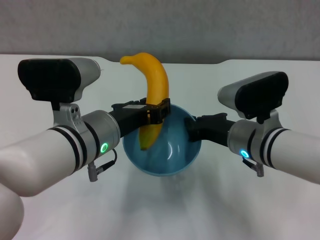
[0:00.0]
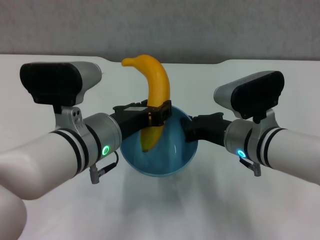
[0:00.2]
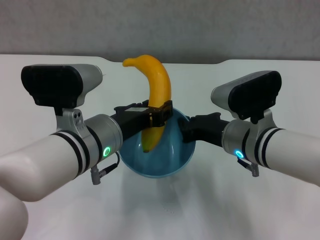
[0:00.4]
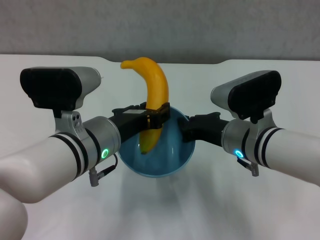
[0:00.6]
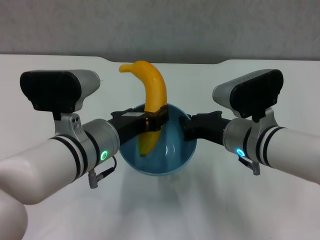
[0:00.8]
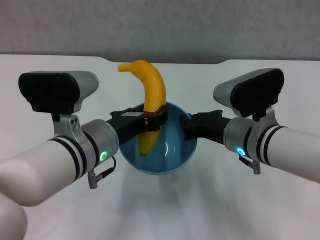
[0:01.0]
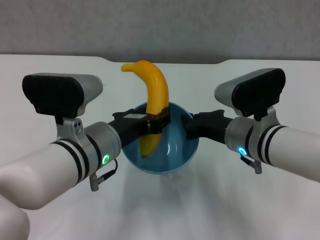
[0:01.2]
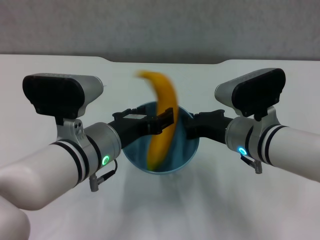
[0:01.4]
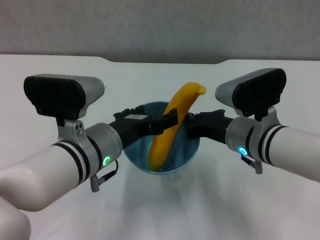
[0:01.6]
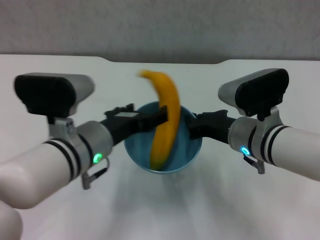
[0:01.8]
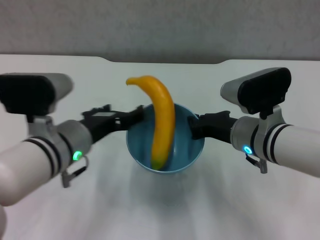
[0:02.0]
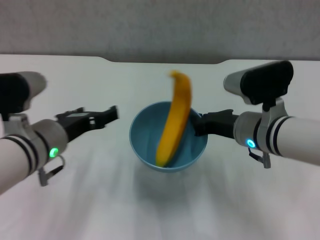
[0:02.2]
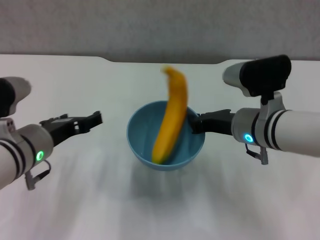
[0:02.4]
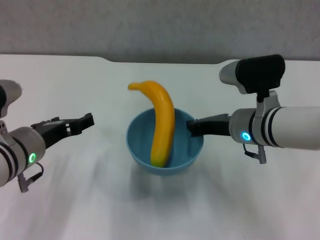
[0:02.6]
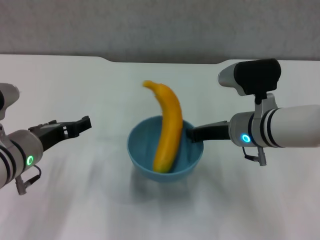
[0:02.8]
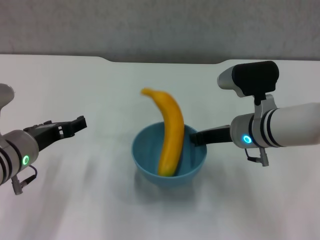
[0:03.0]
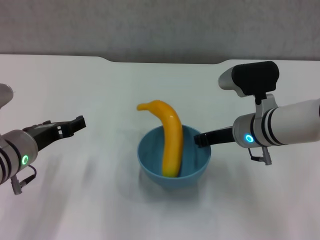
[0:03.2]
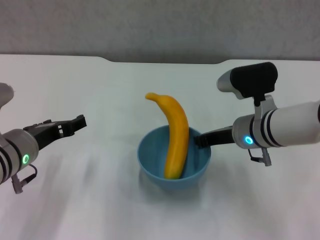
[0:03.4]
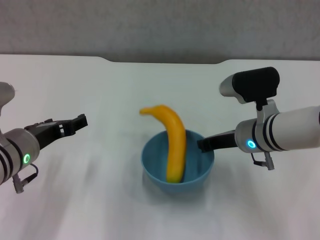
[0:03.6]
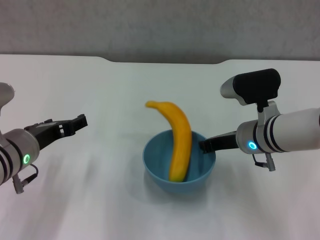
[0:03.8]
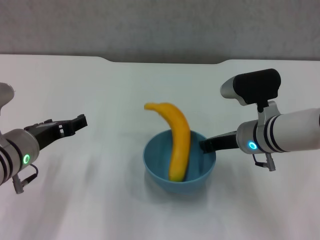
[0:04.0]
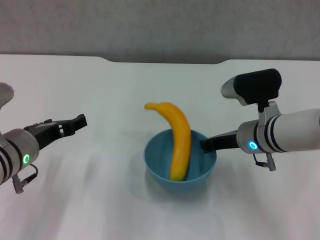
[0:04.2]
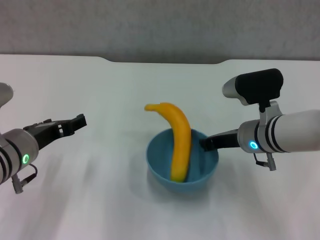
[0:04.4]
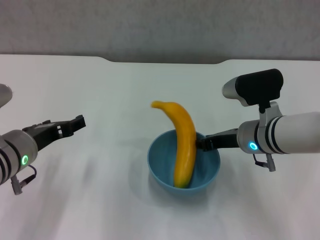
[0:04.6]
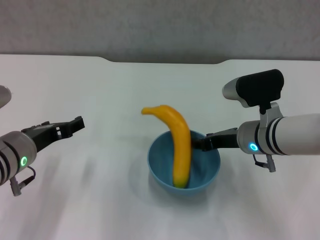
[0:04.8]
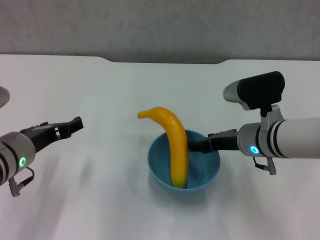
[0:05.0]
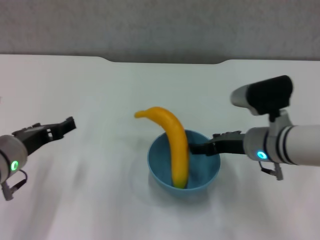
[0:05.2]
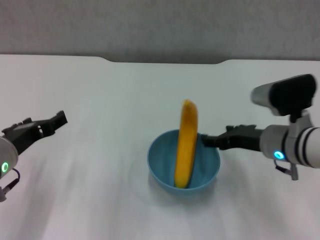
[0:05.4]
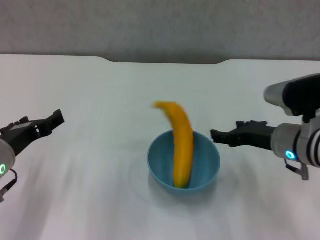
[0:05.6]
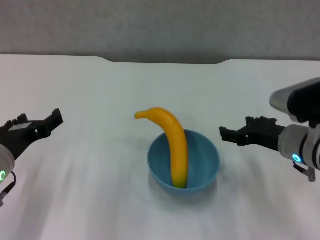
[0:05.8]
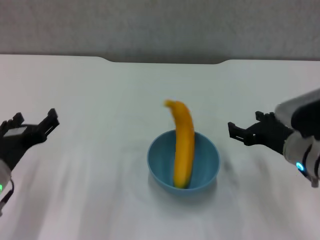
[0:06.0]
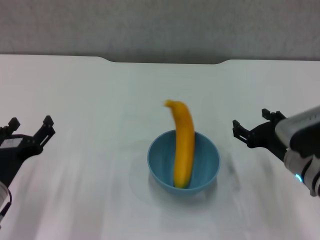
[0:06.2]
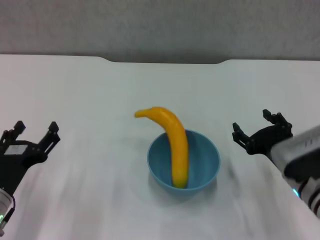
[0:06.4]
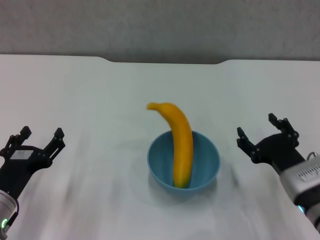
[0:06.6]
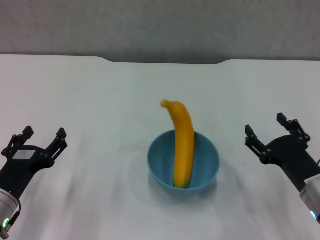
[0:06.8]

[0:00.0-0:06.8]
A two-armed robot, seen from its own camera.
Step, 0:02.0 to 0:05.4: Place the bowl on the table with right gripper.
0:01.4 to 0:02.8: The left gripper moves to the left, some 10 cm, and opens up.
0:02.8 to 0:04.0: There are only small adjustments of the grippers.
0:04.0 to 0:05.4: The right gripper opens its fingers.
0:05.4 to 0:06.8: The right gripper travels backward and downward by some 10 cm. The left gripper shifts about 10 cm downward.
